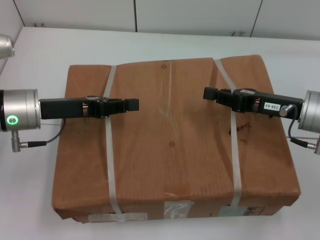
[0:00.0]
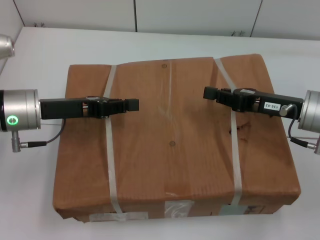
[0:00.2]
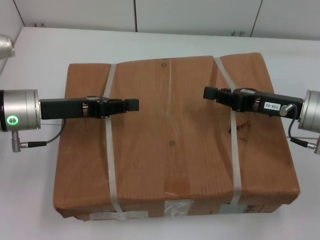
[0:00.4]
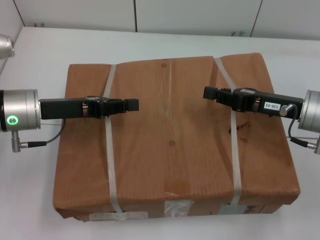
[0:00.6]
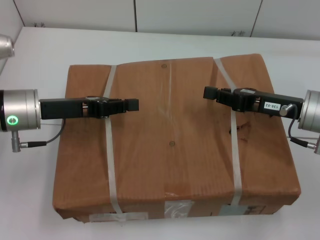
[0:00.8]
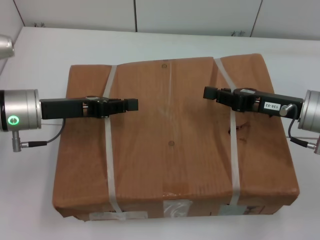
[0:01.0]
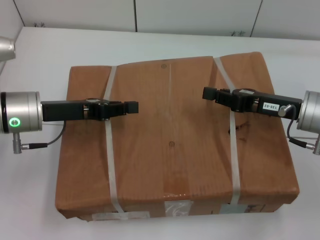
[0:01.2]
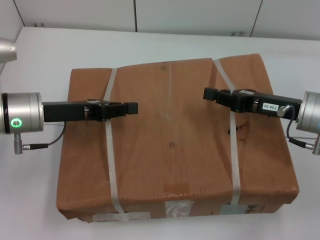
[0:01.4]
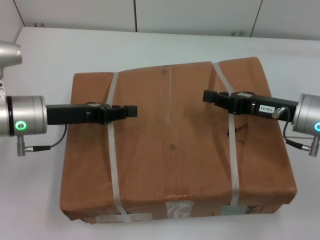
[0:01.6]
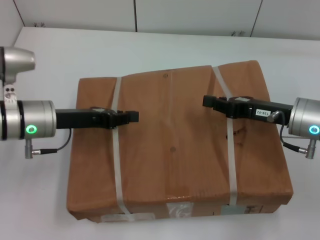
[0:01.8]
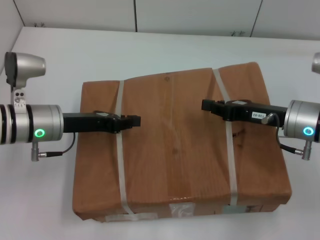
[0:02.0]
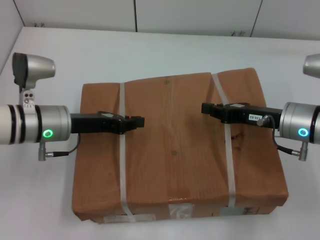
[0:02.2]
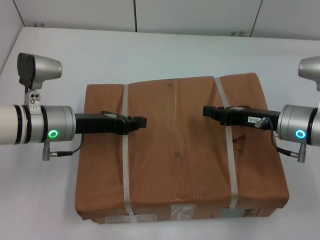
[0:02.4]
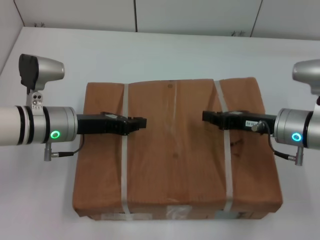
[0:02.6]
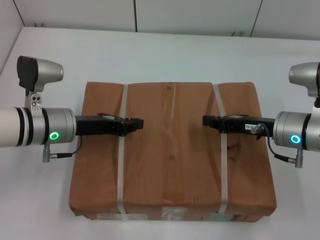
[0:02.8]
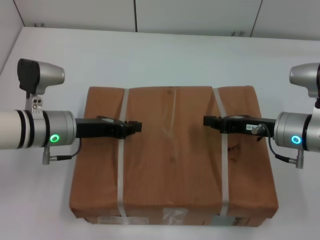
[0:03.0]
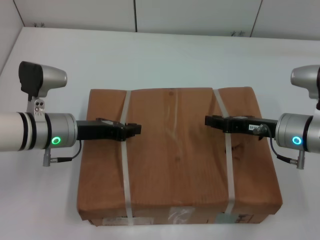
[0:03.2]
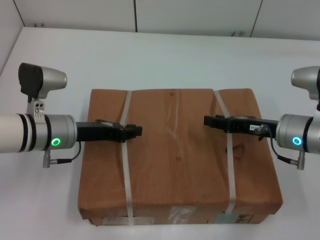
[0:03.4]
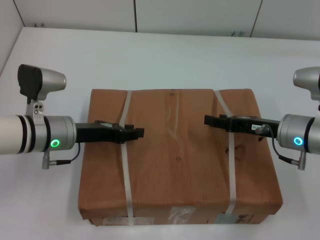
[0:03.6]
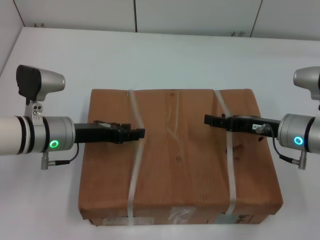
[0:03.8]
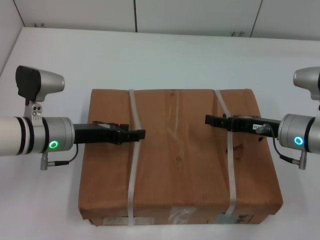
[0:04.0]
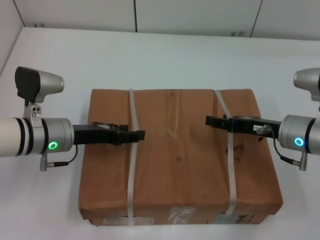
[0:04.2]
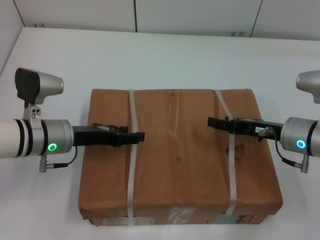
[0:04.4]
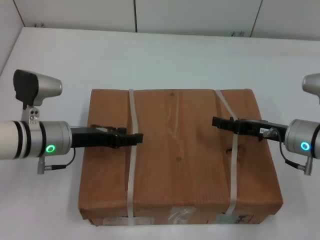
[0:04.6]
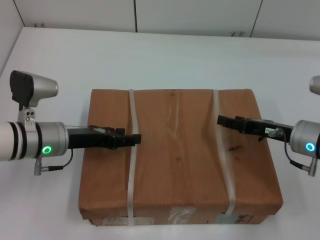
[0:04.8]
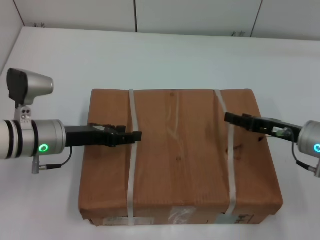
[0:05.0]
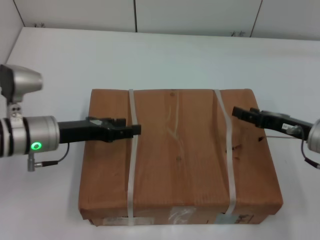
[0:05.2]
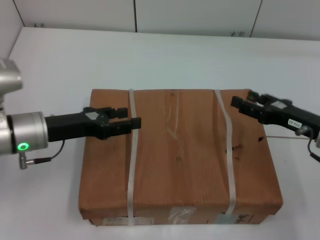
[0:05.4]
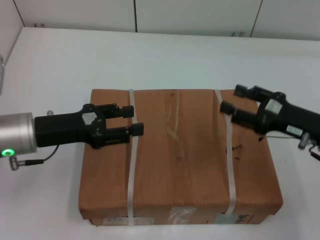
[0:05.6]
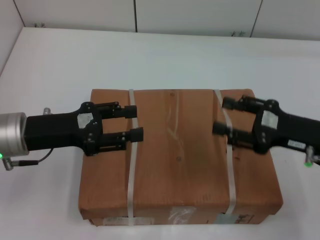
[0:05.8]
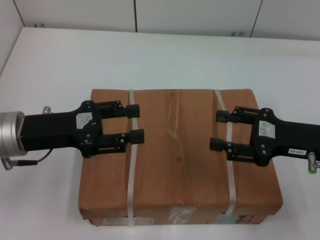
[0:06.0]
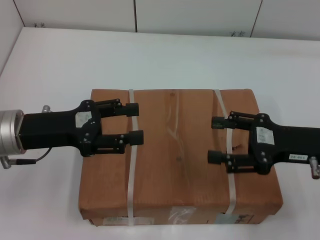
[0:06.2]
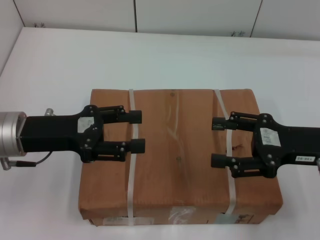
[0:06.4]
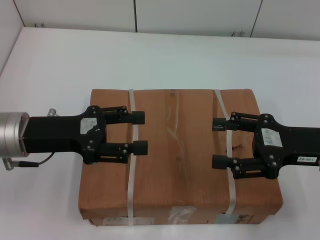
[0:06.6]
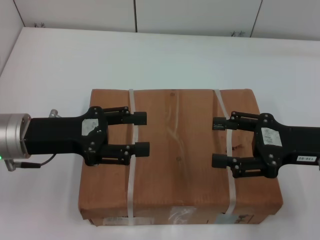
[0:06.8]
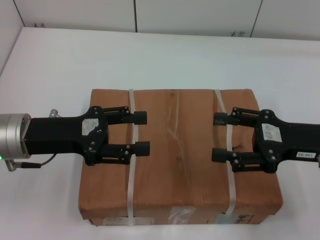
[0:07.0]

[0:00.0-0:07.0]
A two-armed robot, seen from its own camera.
Task of the whole recording: place the box on the table with both arms.
Step, 0:00.0 to 0:03.2: Place the box on the table with left gripper.
Step, 0:00.0 to 0:03.2: Place the box on the table with right gripper.
Step, 0:03.4 to 0:04.8: Loosen the box on the table with left gripper.
Step, 0:03.4 to 0:04.8: Loosen the box on the table with right gripper.
0:00.0 to 0:01.4: Both grippers stay about where they are.
0:01.4 to 0:02.8: The left gripper changes place by roughly 5 cm.
0:02.8 to 0:04.2: The left gripper opens. The right gripper opens its fingers.
0:04.2 to 0:05.6: The right gripper ends up approximately 5 cm from where it was, while the left gripper moves roughly 5 cm.
